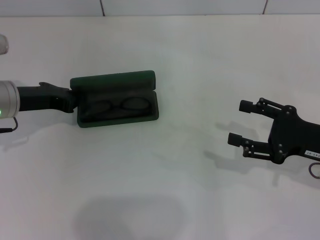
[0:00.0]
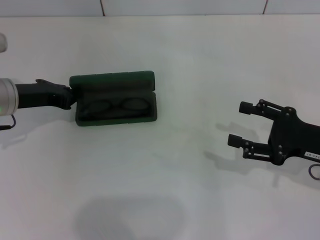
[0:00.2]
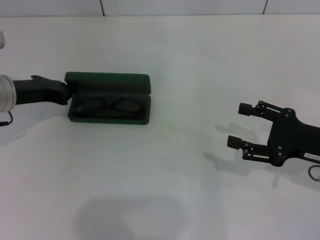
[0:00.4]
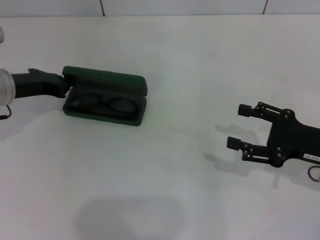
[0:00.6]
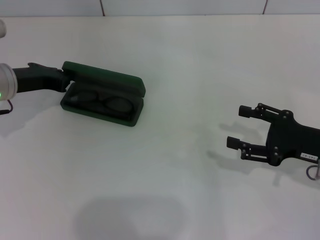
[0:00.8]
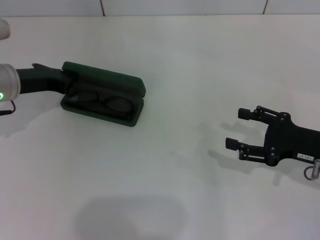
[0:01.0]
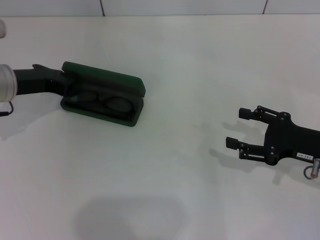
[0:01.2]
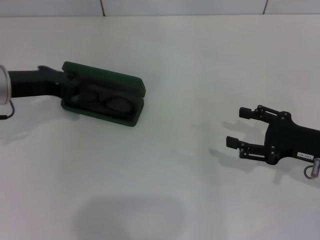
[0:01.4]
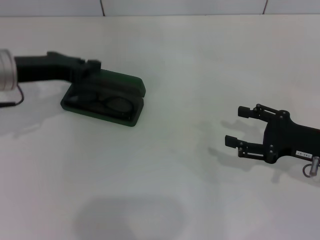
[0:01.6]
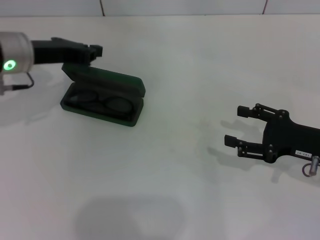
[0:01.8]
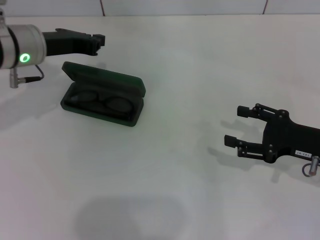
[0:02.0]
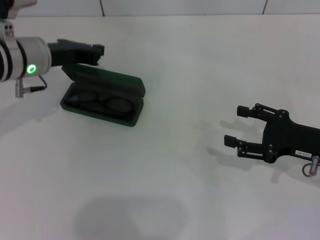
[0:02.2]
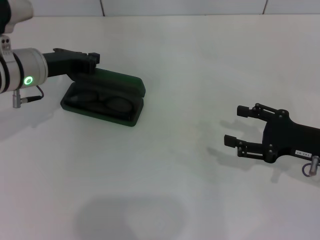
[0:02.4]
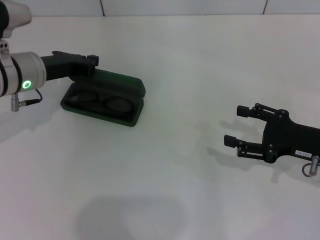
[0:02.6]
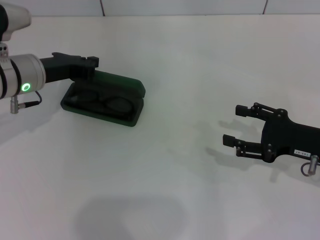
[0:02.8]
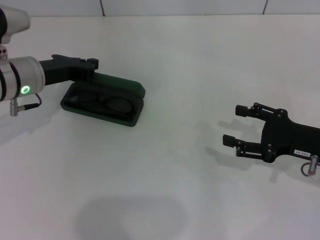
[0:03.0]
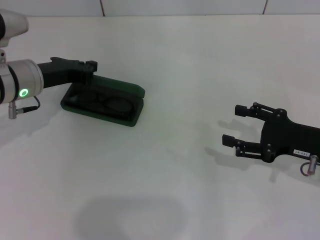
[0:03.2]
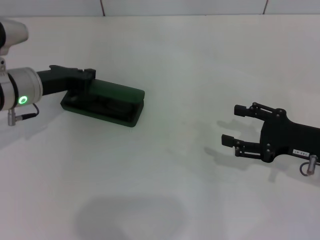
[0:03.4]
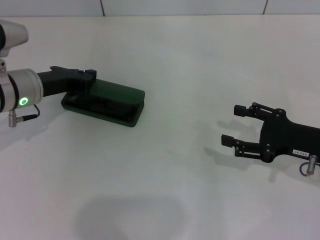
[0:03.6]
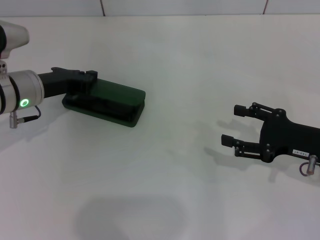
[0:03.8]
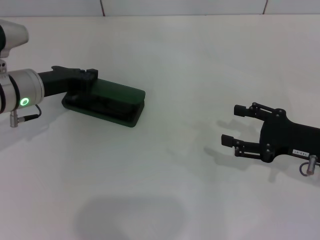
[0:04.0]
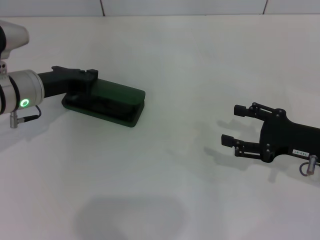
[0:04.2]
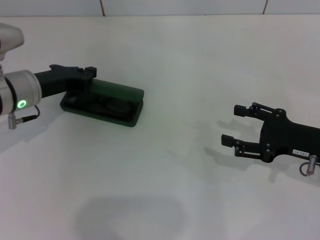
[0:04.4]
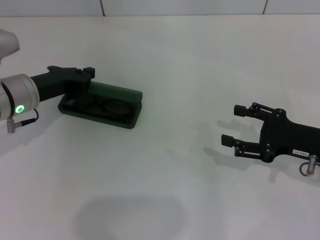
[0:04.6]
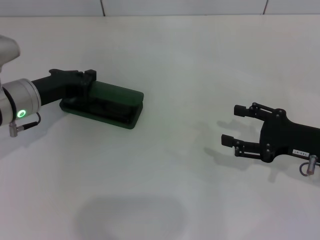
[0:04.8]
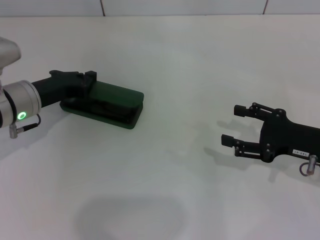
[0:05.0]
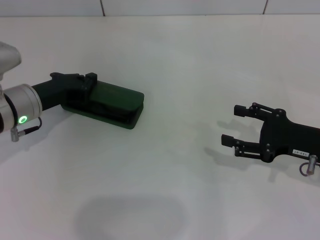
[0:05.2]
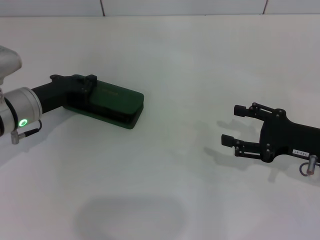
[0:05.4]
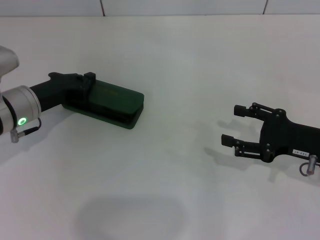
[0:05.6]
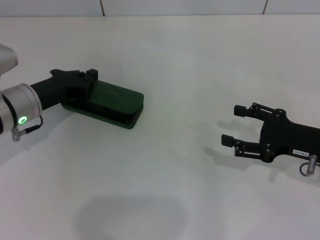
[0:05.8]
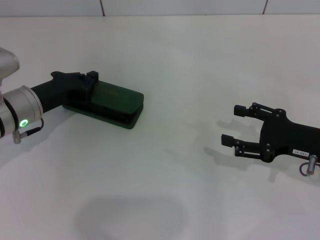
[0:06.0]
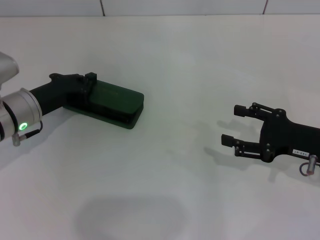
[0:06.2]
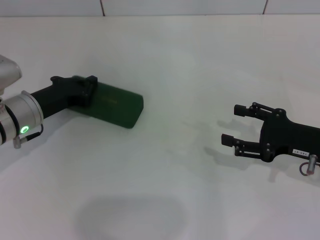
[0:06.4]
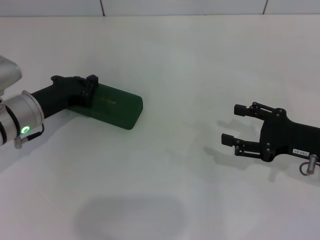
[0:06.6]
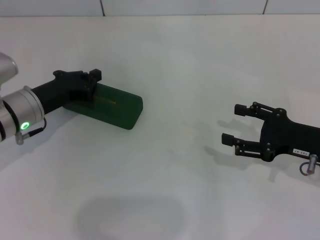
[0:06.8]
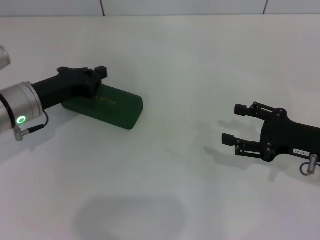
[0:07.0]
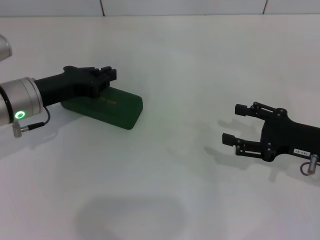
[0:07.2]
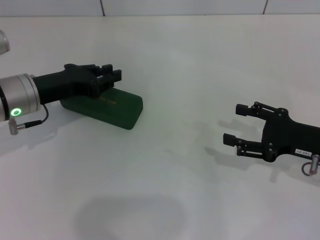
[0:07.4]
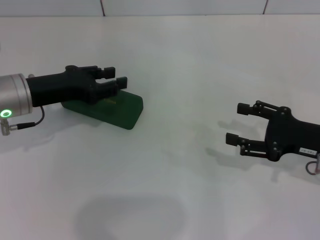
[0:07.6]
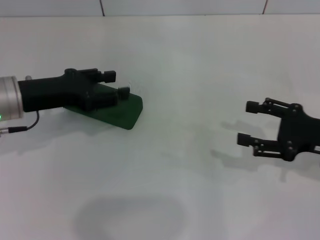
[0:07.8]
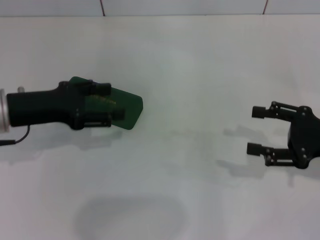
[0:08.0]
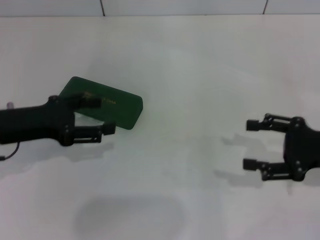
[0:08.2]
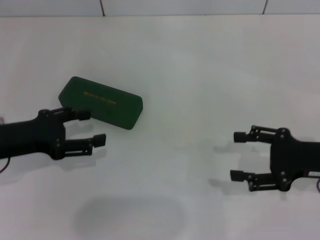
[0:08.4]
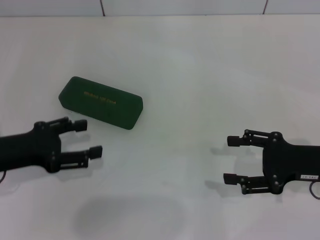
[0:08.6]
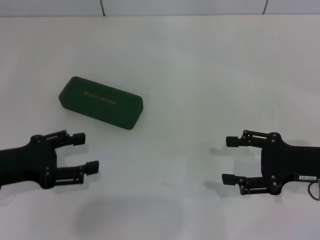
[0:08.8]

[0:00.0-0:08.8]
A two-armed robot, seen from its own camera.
Step, 0:00.0 to 0:06.6: Close the glasses case with your left hand.
0:00.0 to 0:01.4: There are only small adjustments of the grippers.
0:01.4 to 0:03.0: The left gripper ends up roughly 5 cm from where it was.
0:03.0 to 0:05.8: The grippers make only small movements.
0:05.8 to 0:07.4: The grippers move only a little.
0:07.4 to 0:08.8: The left gripper moves backward and to the left, some 10 cm, and opens its fingers.

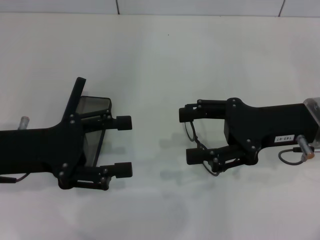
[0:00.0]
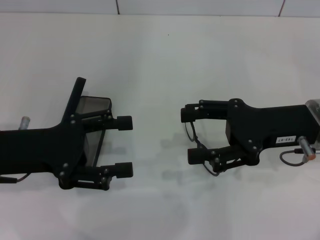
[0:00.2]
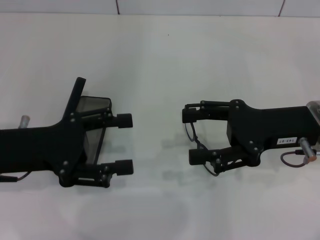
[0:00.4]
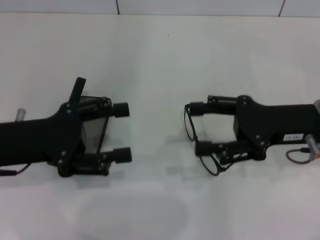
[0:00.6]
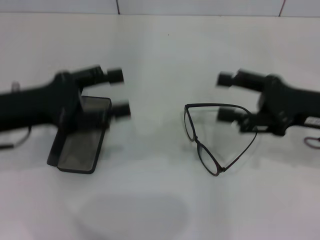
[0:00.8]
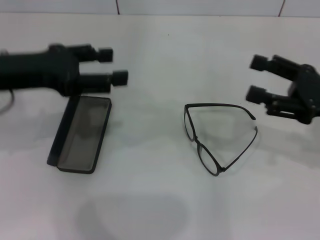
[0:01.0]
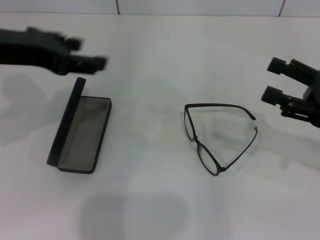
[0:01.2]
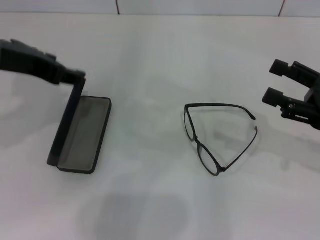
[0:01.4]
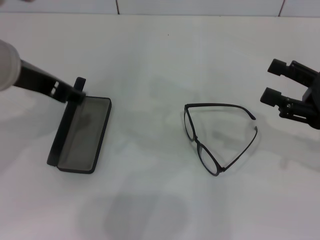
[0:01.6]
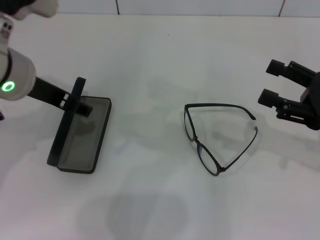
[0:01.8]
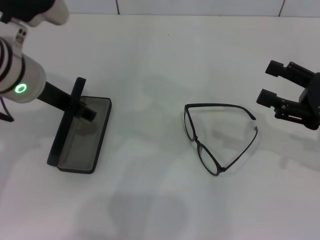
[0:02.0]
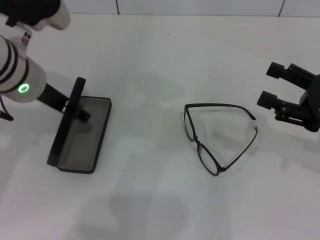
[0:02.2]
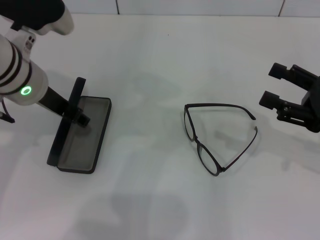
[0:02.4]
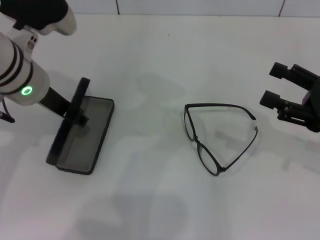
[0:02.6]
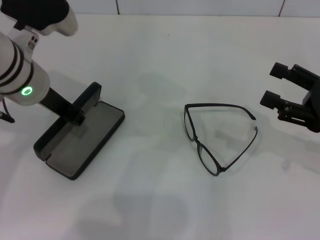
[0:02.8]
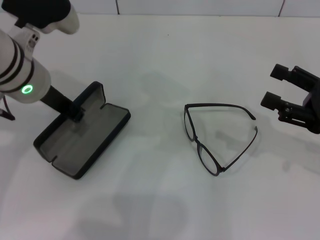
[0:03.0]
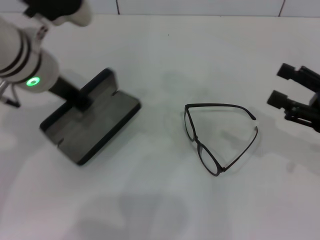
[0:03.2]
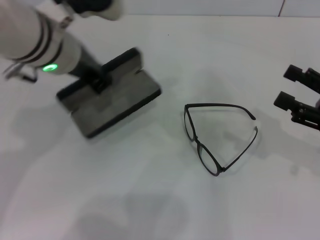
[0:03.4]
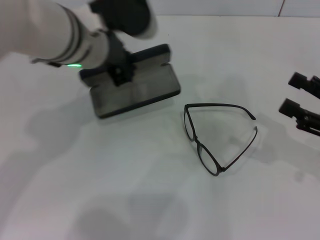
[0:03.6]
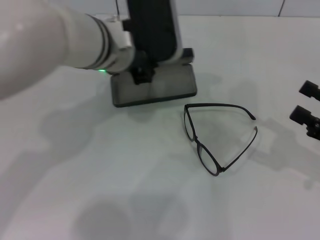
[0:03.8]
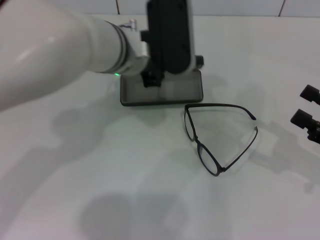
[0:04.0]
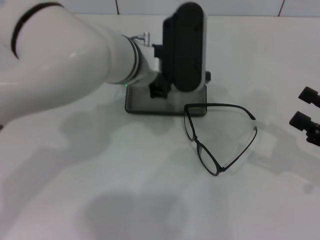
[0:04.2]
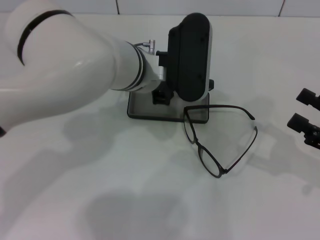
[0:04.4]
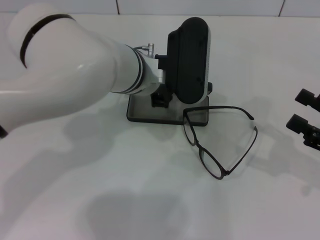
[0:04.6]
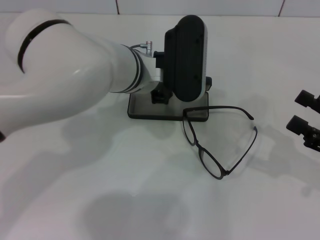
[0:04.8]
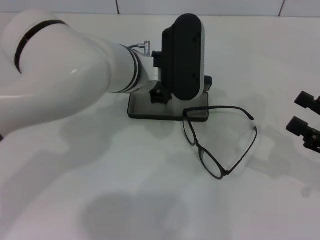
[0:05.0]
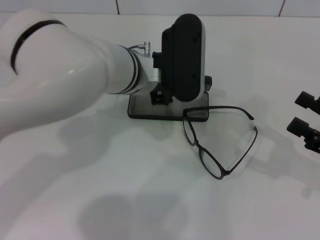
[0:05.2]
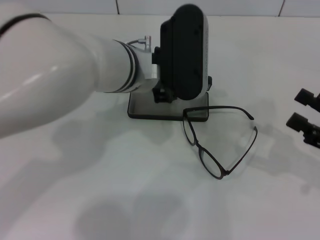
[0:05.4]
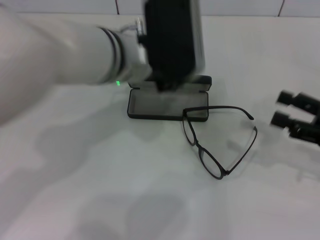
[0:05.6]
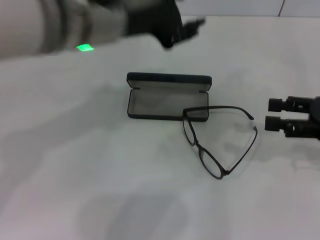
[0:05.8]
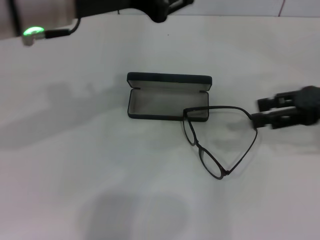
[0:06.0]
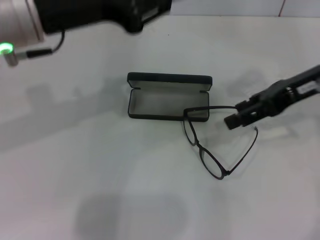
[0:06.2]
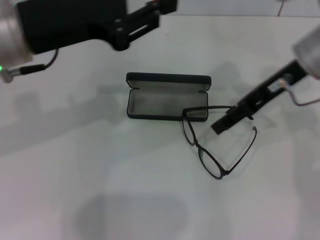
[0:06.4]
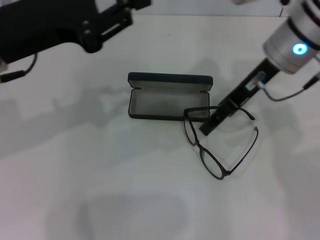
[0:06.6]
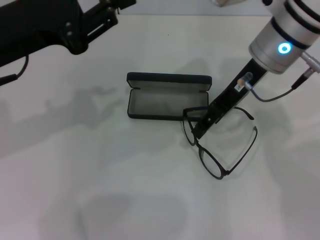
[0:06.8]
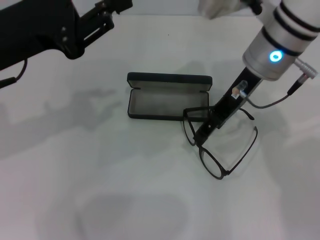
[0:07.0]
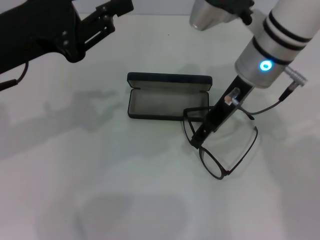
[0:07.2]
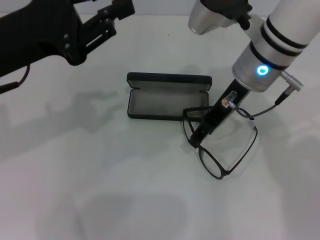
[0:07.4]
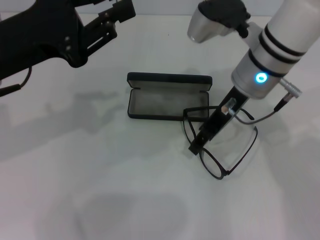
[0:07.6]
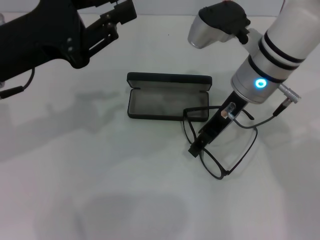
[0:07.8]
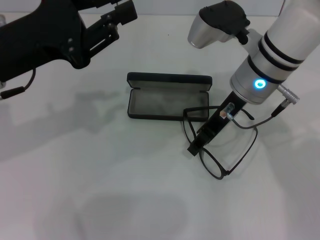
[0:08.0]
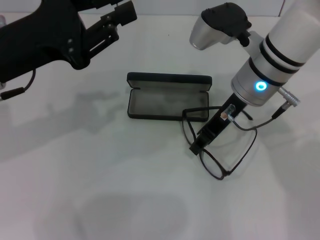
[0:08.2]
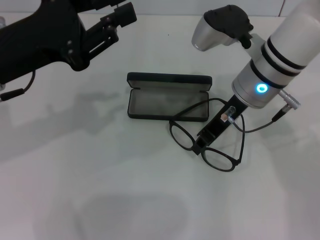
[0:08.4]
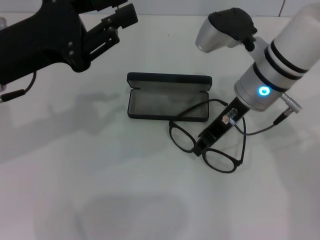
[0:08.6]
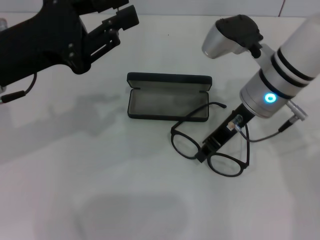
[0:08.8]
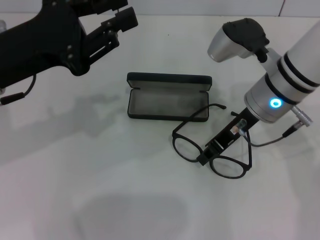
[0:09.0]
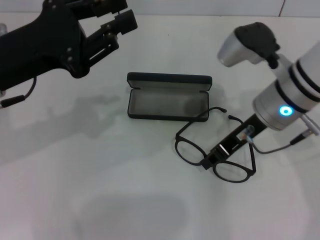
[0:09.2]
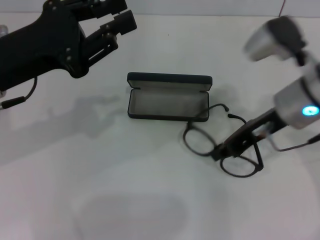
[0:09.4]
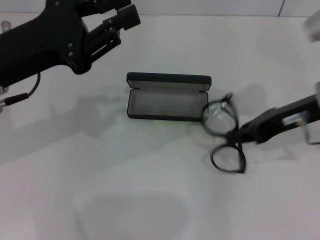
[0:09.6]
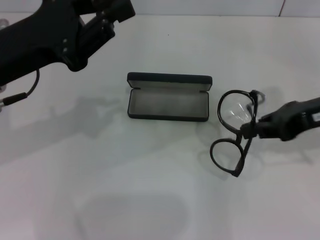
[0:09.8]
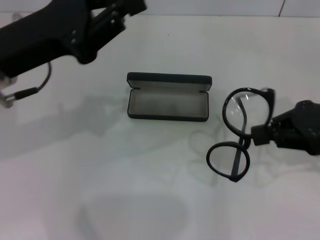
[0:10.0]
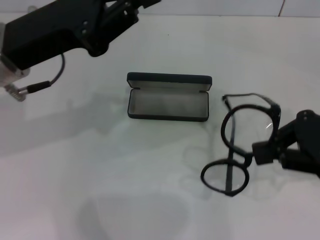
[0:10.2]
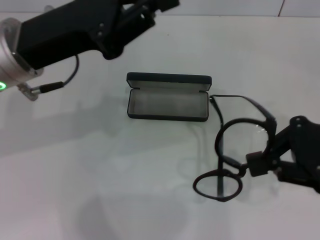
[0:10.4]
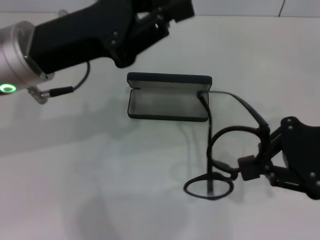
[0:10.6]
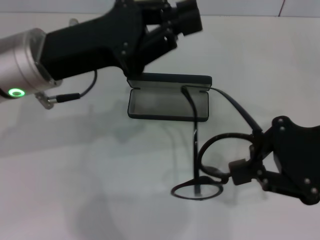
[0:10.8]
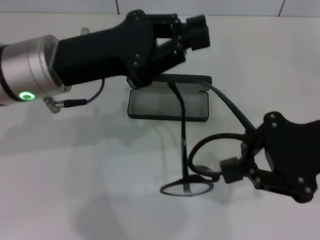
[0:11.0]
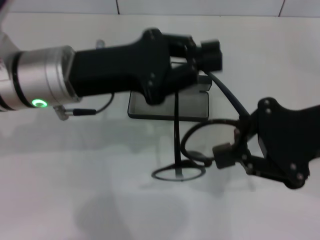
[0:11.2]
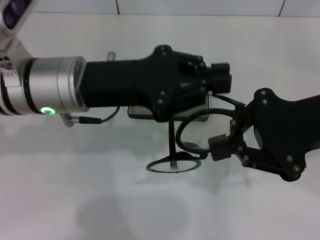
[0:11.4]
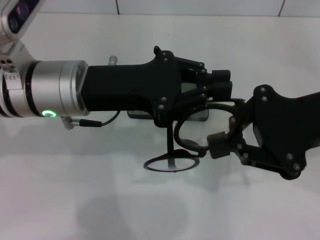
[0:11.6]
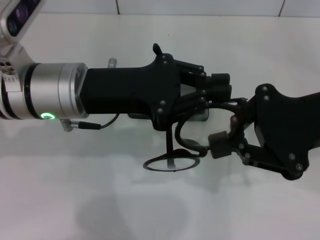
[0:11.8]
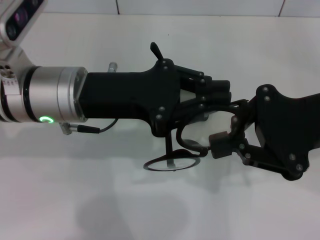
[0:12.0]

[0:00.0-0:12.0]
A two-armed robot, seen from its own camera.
Step, 0:00.0 to 0:02.8: Grab the glasses case with your left hand.
Step, 0:03.0 to 0:05.4: Place the glasses case in the center of the table with your left hand.
Step, 0:05.6 to 0:08.4: Grab the eyeglass frame with your right hand.
0:00.0 to 0:01.6: The left gripper is displaced upward, to the right and forward by some 15 cm. The right gripper travels to the right by some 10 cm.
0:01.6 to 0:03.0: The left gripper ends up about 5 cm from where it was, and closes up.
0:03.0 to 0:04.4: The right gripper moves approximately 5 cm, while the left gripper moves to the right, about 15 cm.
0:04.4 to 0:06.0: The right gripper is displaced upward and forward by about 15 cm. Meanwhile the left gripper goes about 15 cm upward, to the left and backward, and opens up.
0:06.0 to 0:07.6: The right gripper travels to the left by about 20 cm, while the left gripper is displaced to the left and downward by about 10 cm.
0:07.6 to 0:09.0: The right gripper closes.
0:09.0 to 0:10.4: The right gripper moves to the right and backward, roughly 15 cm.
0:10.4 to 0:12.0: The left gripper ends up some 5 cm from where it was.

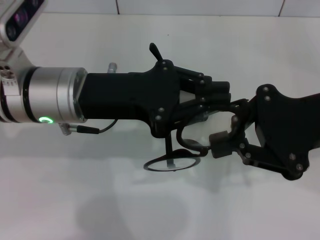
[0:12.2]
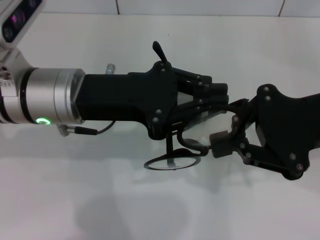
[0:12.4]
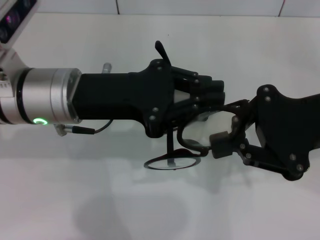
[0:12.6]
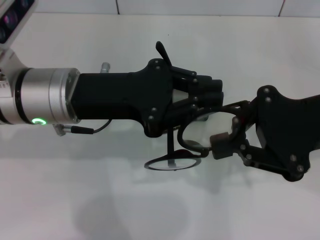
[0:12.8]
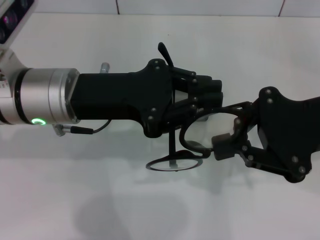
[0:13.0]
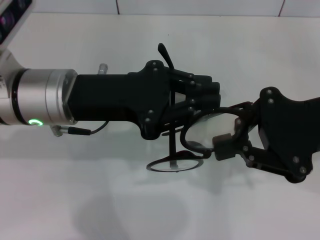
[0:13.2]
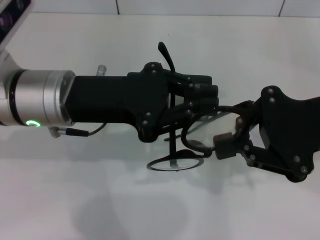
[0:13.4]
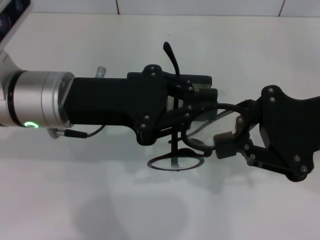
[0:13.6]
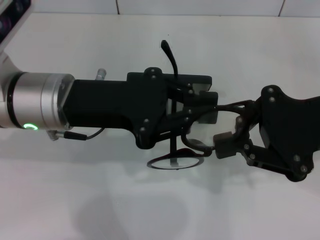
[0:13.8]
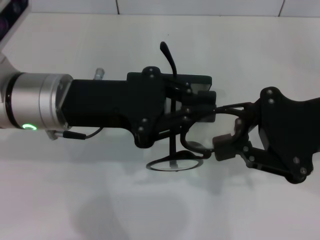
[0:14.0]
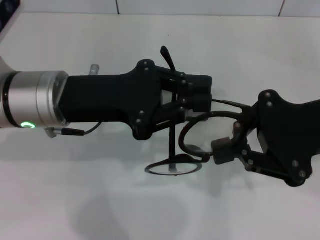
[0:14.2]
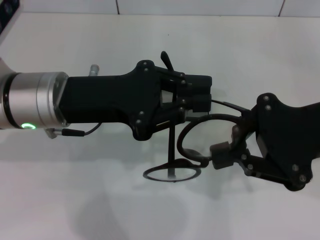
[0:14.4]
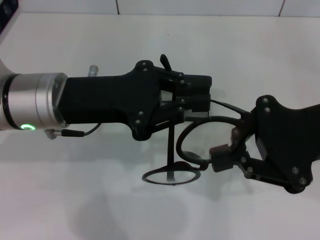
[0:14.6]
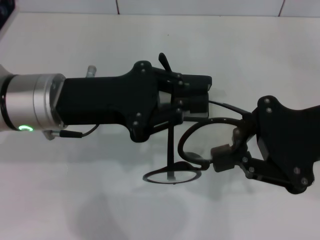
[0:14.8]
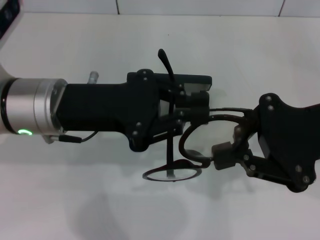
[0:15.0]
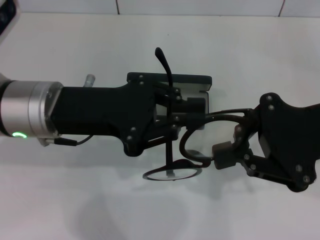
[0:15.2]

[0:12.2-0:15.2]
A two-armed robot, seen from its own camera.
0:12.2 to 0:13.8: The two grippers keep their place.
0:13.8 to 0:15.2: The two grippers keep their place.
